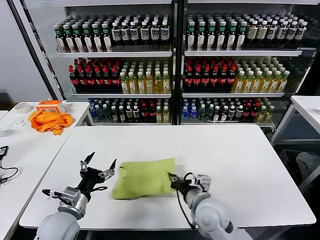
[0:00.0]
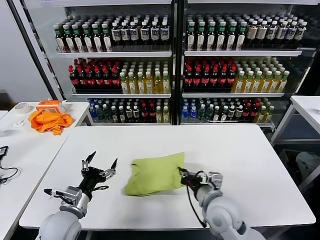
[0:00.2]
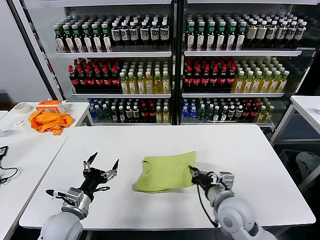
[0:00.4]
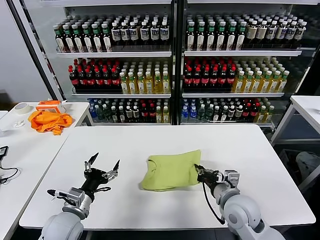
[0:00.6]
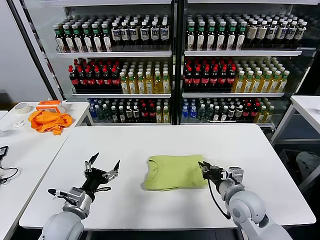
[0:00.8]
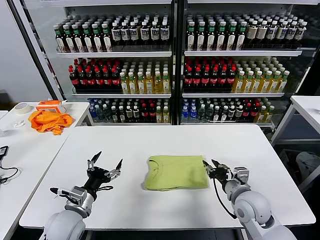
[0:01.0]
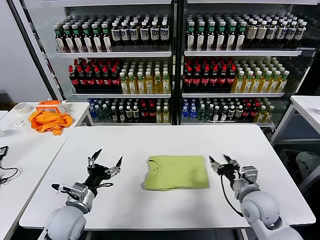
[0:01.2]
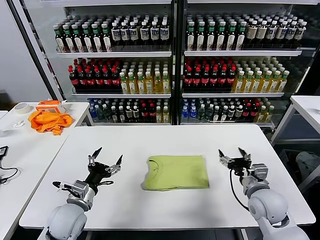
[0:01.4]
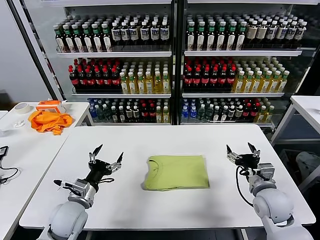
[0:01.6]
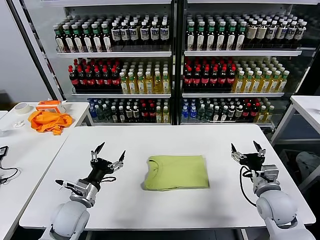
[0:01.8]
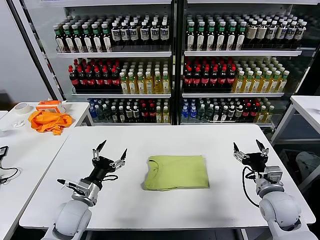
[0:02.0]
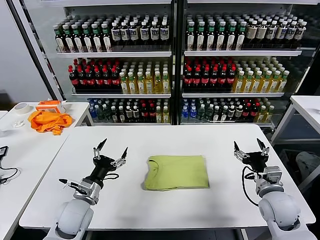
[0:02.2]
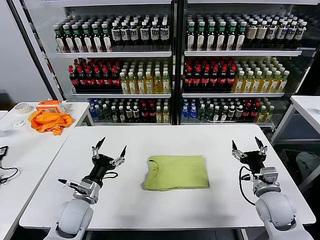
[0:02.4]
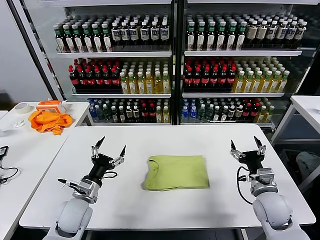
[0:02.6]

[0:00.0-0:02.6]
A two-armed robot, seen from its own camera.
Task of the whole recording: fold and organize the clothes.
0:00.0 to 0:01.2: The right gripper goes approximately 15 cm to the right, and opens.
0:01.2 to 0:02.6: The right gripper moves roughly 5 cm, and opens.

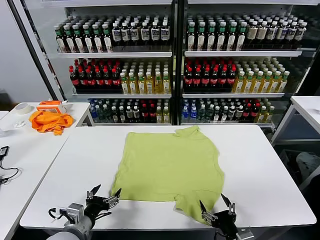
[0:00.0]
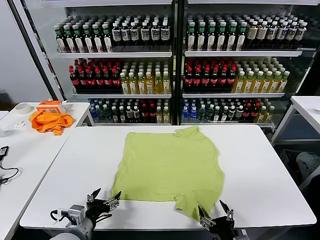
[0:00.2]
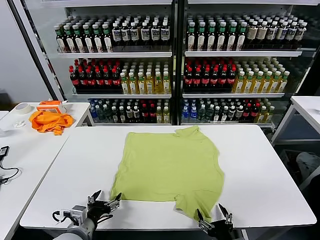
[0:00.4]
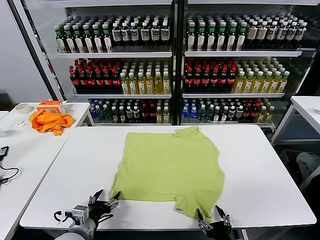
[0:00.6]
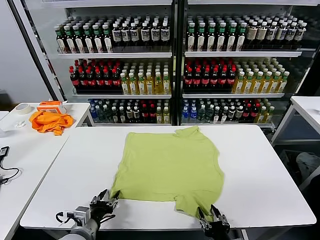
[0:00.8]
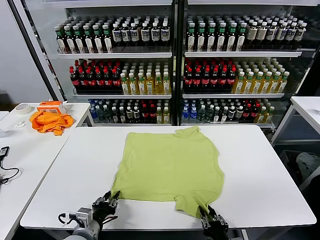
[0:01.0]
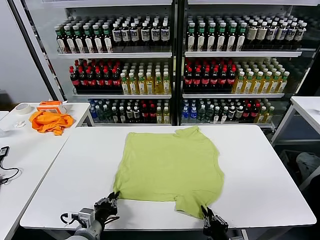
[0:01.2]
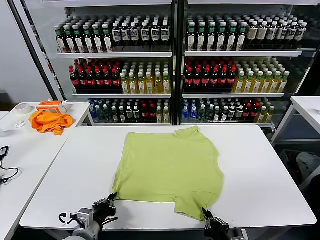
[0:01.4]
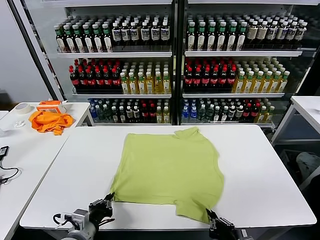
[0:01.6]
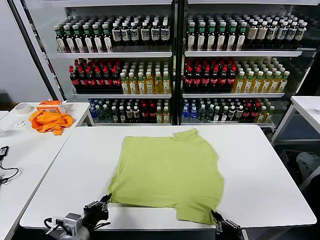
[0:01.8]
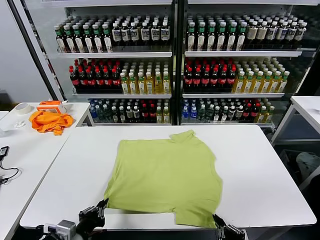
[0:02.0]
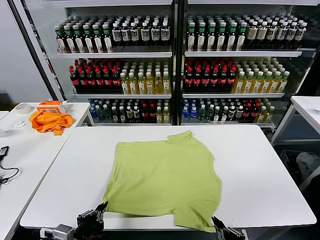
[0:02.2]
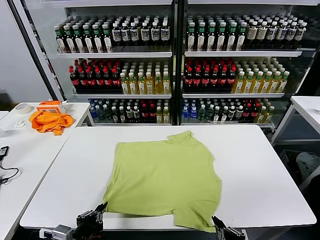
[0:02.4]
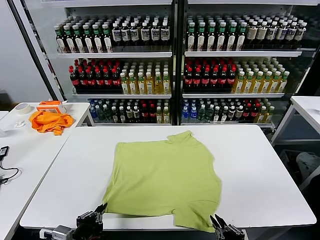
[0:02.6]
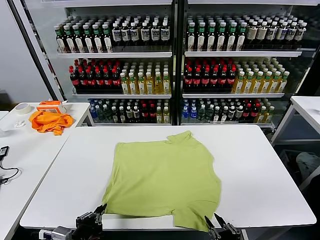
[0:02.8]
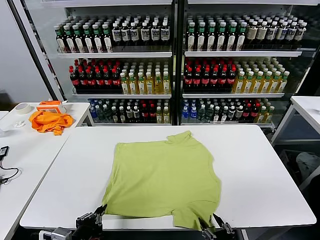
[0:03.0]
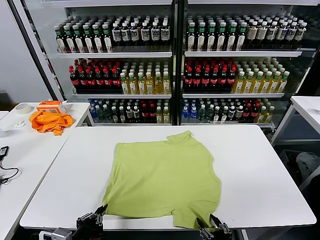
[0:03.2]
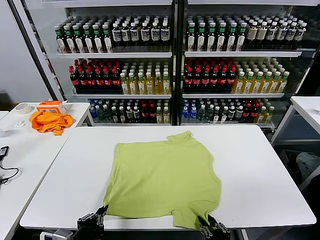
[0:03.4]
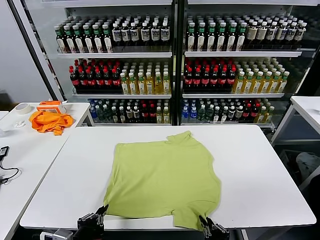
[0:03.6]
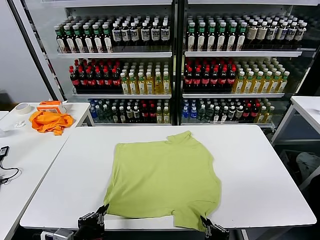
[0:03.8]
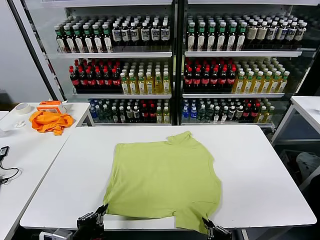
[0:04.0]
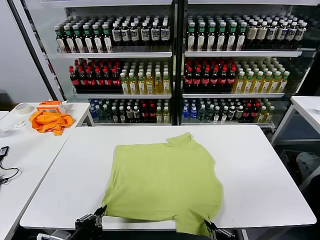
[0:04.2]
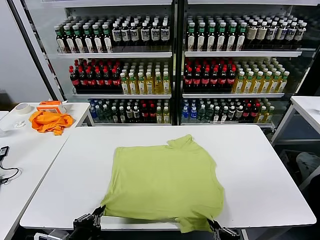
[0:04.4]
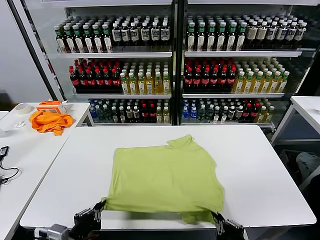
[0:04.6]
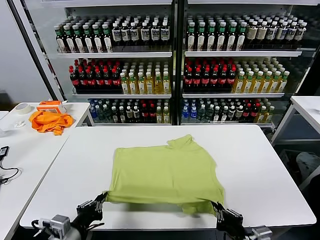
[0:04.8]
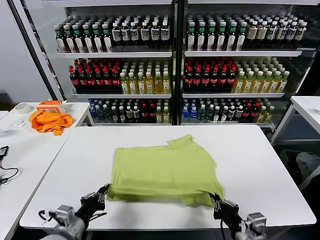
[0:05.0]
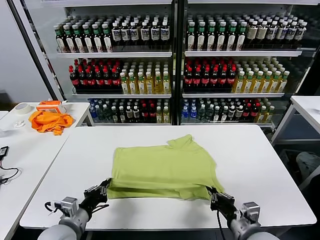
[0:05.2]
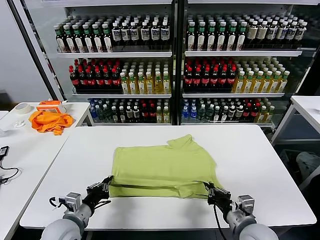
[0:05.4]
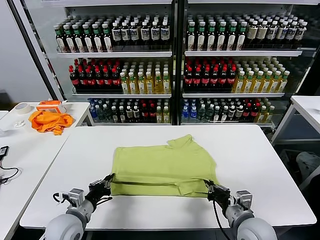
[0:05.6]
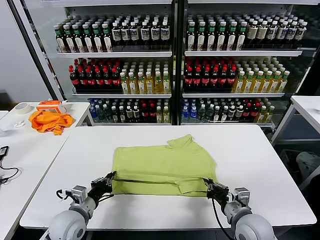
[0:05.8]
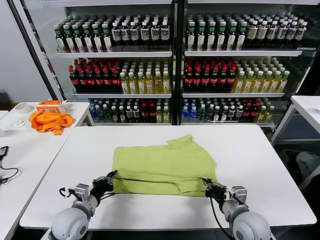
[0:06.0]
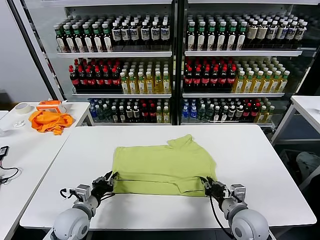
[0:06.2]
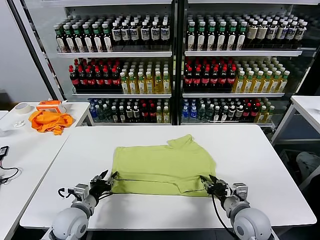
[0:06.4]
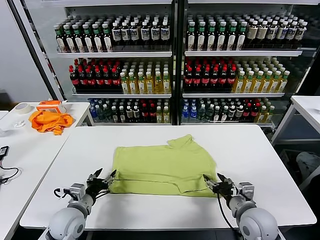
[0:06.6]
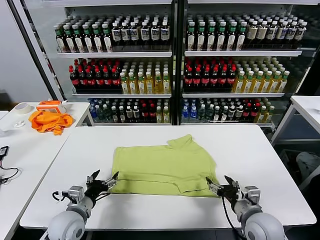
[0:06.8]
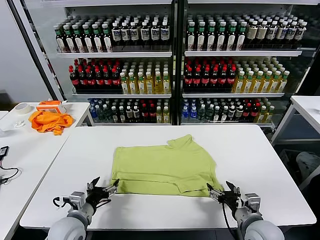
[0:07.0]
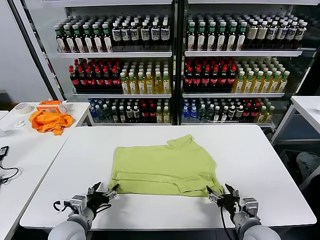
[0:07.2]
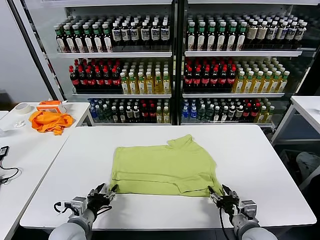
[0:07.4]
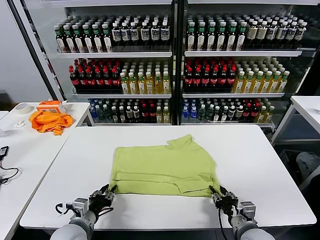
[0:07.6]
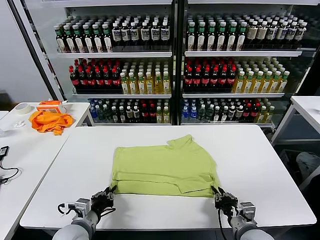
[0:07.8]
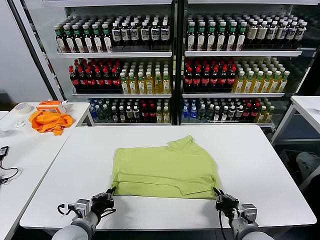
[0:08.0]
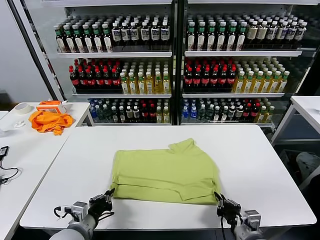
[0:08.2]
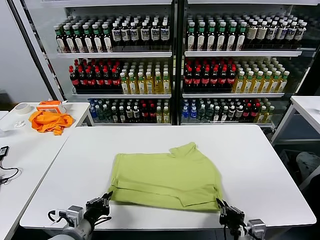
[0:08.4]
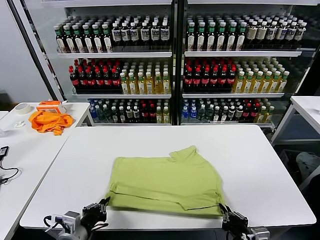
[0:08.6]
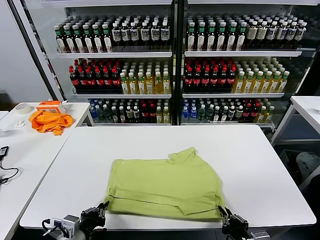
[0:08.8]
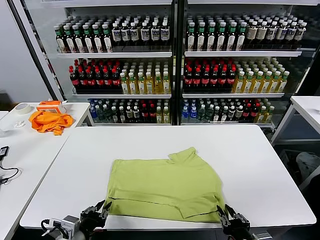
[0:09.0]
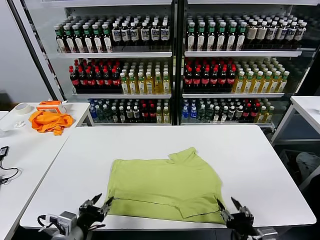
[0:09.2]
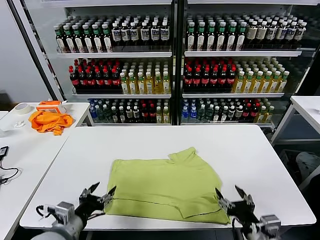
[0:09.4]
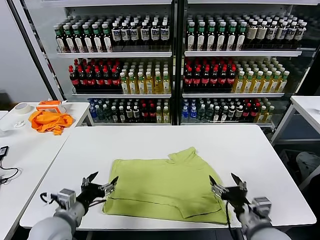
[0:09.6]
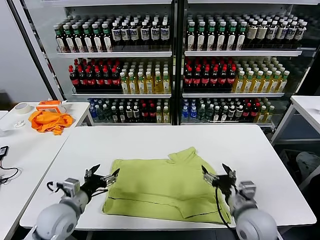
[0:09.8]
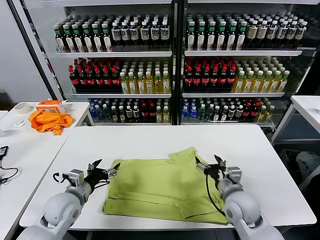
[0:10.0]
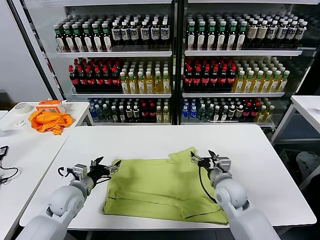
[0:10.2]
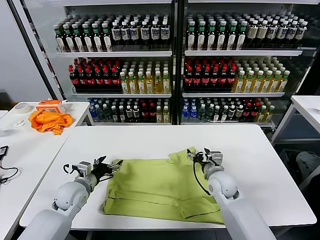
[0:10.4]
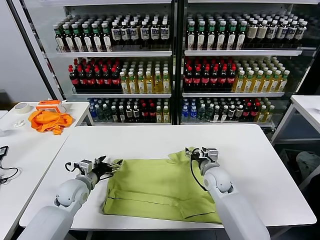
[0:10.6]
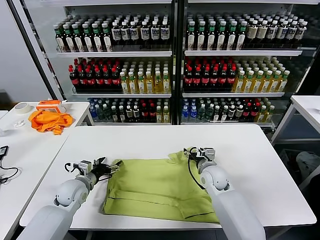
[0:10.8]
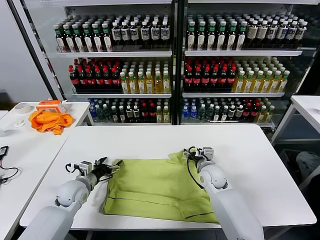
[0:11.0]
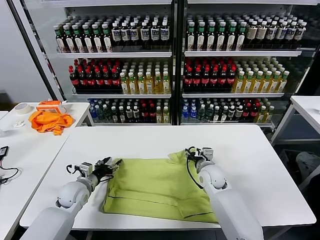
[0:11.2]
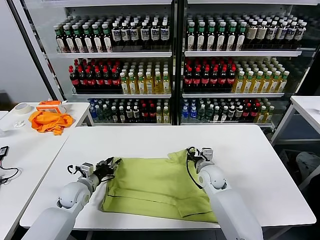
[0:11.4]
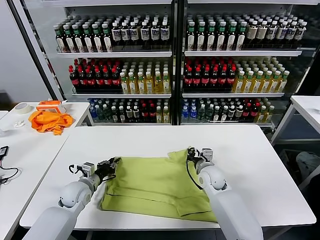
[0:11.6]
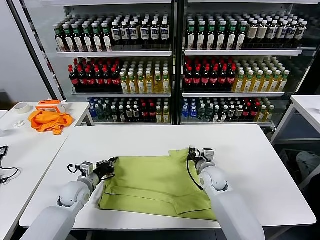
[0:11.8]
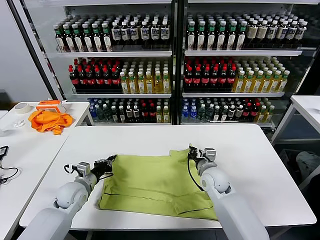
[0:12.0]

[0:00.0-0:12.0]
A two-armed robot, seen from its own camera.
Task of the whole recording: fold and organize the clothes.
Step, 0:00.0 to 0:01.2: use both grippers simultaneously to clamp the lower edge of the clothing fabric.
Step, 0:01.4 to 0:06.4: use both grippers to drag the lower edge of the fabric forward and fold it over the upper edge.
Step, 0:06.6 to 0:09.0: Drag the clothes downward with both gripper.
Step, 0:09.2 to 0:11.6: use both grippers simultaneously to clamp the upper edge of the clothing fabric.
0:01.6 to 0:03.0: The left gripper heads backward, covering approximately 5 cm, while the right gripper opens up.
0:03.0 to 0:04.4: The right gripper shifts some 5 cm upward, and closes.
0:04.4 to 0:06.0: The right gripper travels forward by some 15 cm. The left gripper heads forward and downward, covering some 20 cm.
0:06.0 to 0:07.6: The right gripper moves some 5 cm, and opens, then closes again. The left gripper ends up about 5 cm from where it was, and opens, then closes once more.
0:07.6 to 0:09.0: The right gripper is displaced backward by approximately 10 cm, while the left gripper goes some 10 cm backward and upward.
0:09.0 to 0:10.4: Both grippers travel together forward, approximately 25 cm. The right gripper opens; the left gripper opens.
0:10.4 to 0:12.0: The right gripper closes up, while the left gripper closes its fingers.

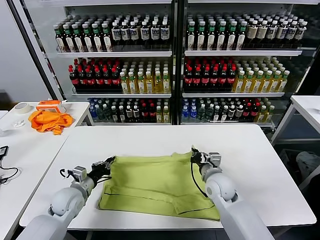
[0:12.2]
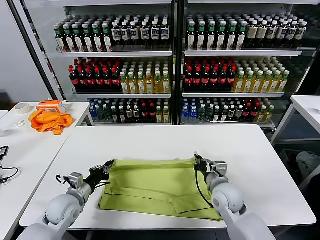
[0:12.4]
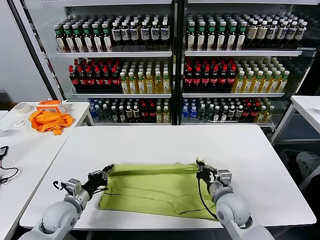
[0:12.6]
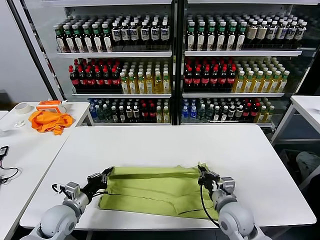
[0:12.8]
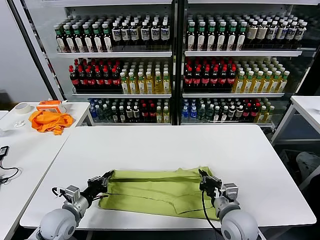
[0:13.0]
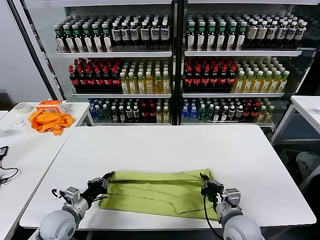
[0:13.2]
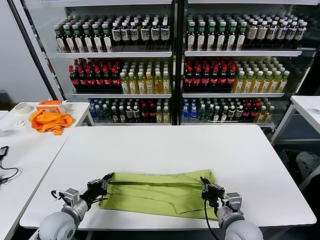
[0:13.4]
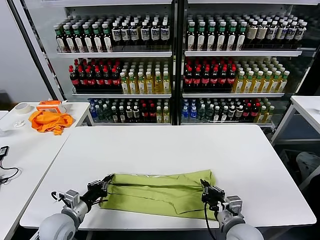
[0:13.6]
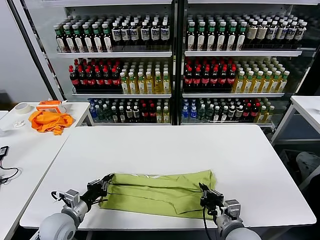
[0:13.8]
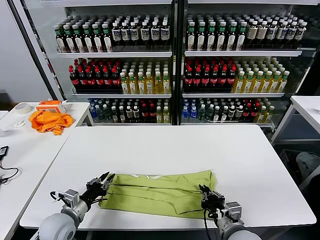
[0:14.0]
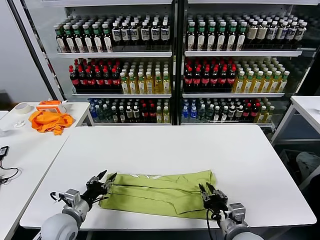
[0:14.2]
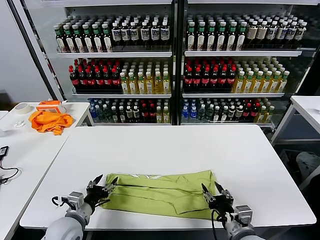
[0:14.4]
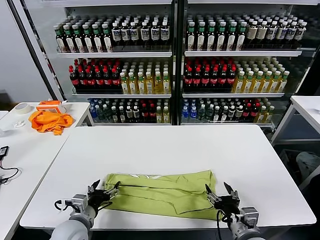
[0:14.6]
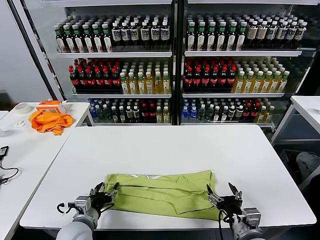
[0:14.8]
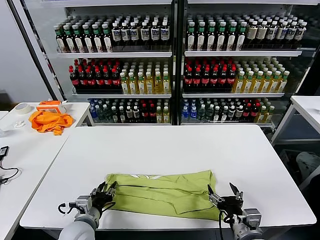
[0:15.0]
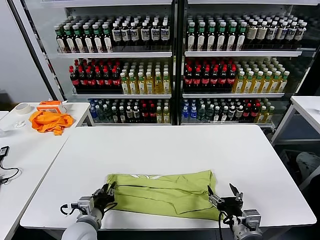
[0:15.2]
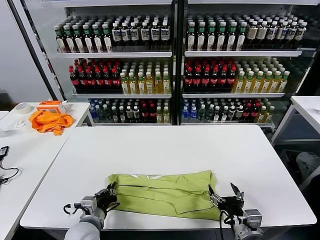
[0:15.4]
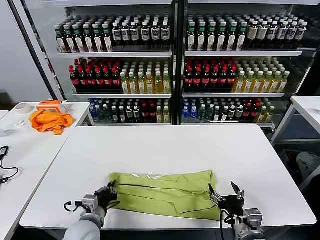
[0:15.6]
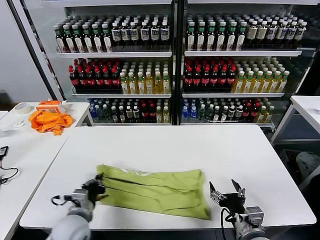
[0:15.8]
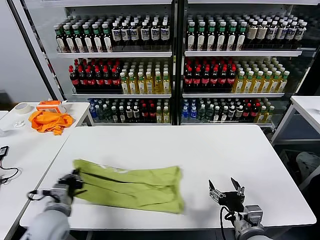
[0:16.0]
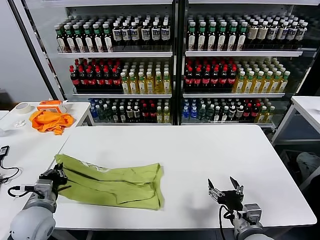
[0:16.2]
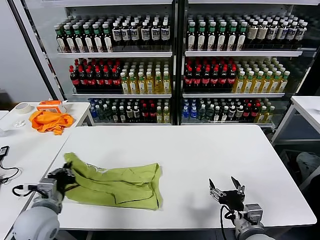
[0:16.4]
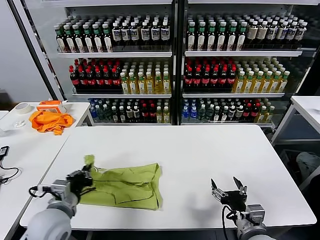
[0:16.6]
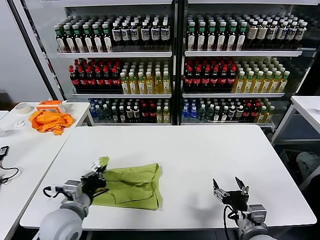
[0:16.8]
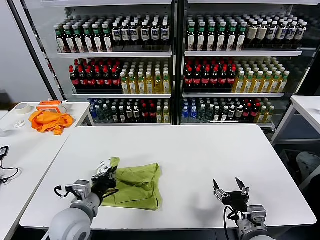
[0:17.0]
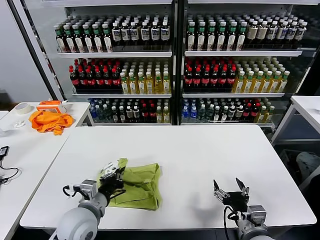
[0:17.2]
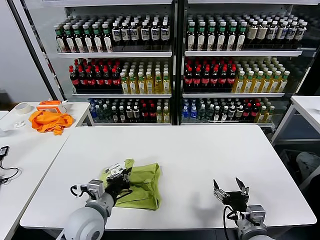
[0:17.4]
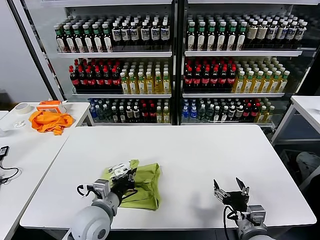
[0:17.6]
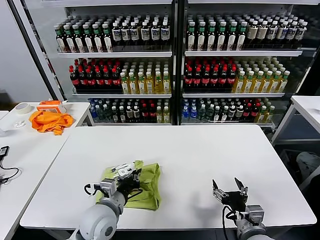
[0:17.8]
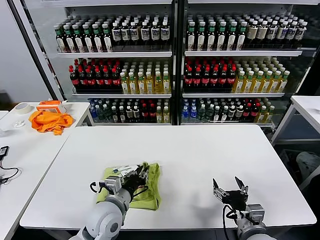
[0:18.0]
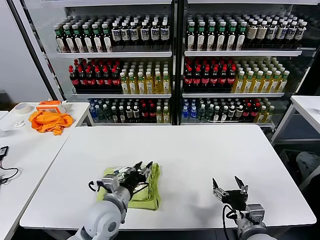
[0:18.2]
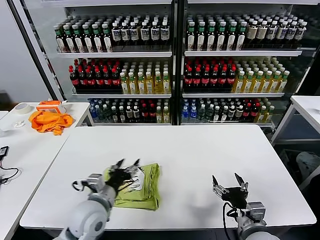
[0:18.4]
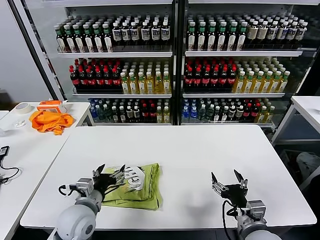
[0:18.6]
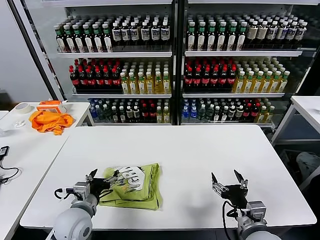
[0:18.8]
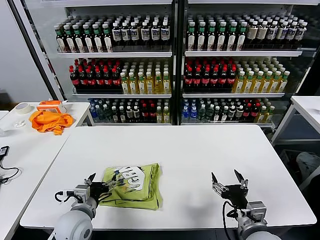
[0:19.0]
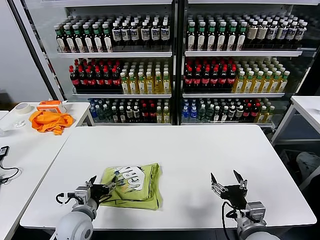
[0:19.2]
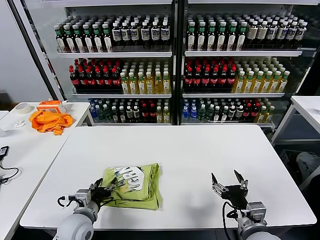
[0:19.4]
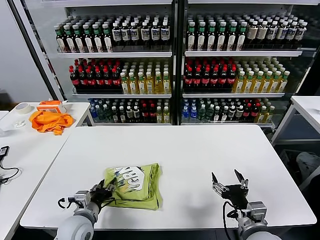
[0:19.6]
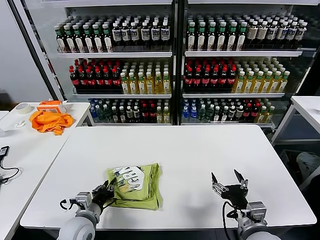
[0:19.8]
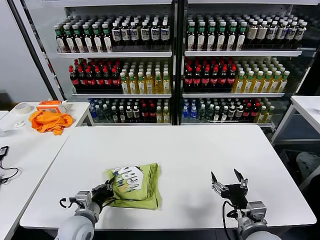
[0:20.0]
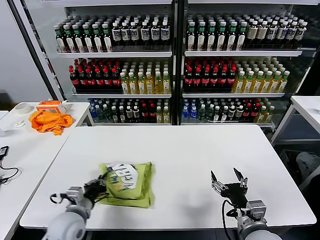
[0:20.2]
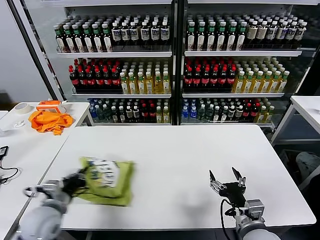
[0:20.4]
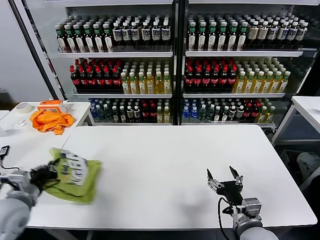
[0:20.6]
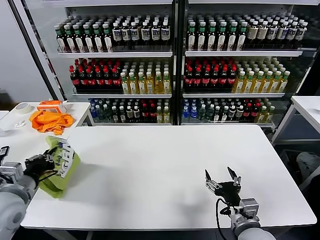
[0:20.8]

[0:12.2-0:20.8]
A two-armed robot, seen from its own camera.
Task of the whole recording: fold and organize the clothes.
Step, 0:12.2 to 0:14.2: use both grippers to drag the upper edge of the fabric backward and fold it over the lower edge.
Step, 0:14.4 to 0:15.4: use the left gripper to clamp the left edge of the fabric.
Step, 0:15.6 to 0:18.0: use the left gripper to drag the left edge of the fabric to the left and folds it over the right edge.
0:12.2 to 0:13.6: The left gripper travels backward by roughly 10 cm; the right gripper heads backward, covering roughly 15 cm.
0:13.6 to 0:15.0: The right gripper opens, while the left gripper heads to the right, covering about 5 cm, and opens its fingers.
0:15.0 to 0:16.6: The left gripper heads upward, covering some 10 cm, moves approximately 10 cm to the left and comes back, and closes.
0:16.6 to 0:18.0: The left gripper is displaced to the right by approximately 15 cm.
0:18.0 to 0:19.4: The left gripper shifts approximately 10 cm to the left and downward, and opens its fingers.
0:19.4 to 0:20.8: The left gripper heads upward and to the left, covering some 20 cm, and closes its fingers.
